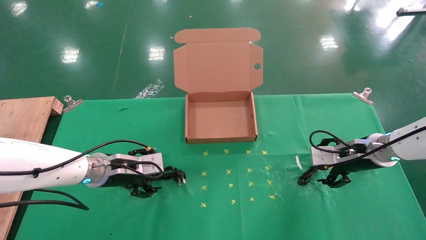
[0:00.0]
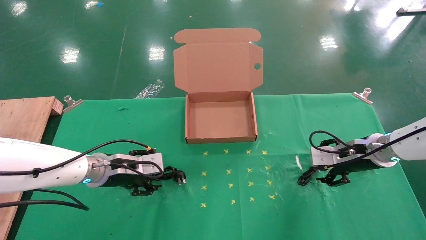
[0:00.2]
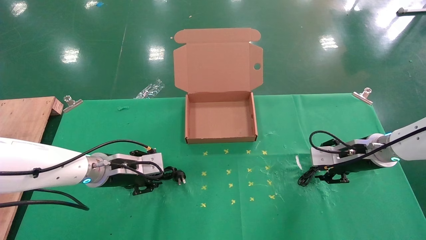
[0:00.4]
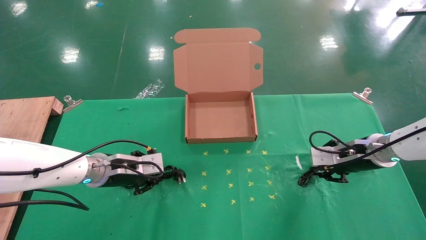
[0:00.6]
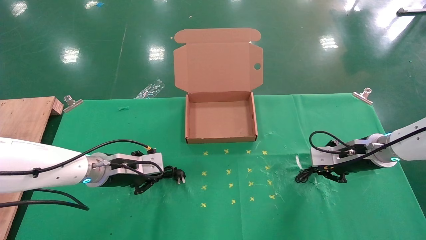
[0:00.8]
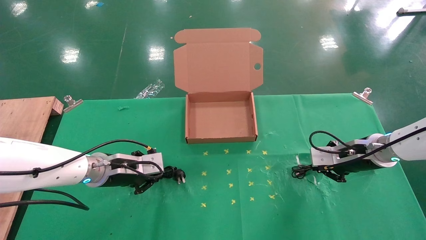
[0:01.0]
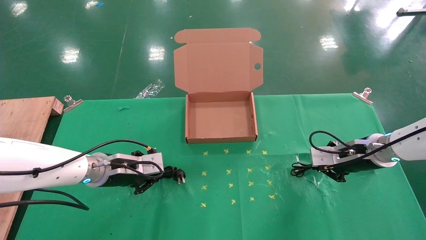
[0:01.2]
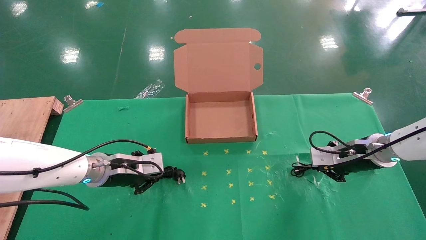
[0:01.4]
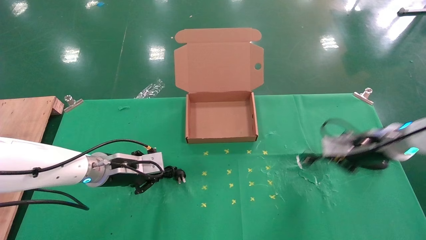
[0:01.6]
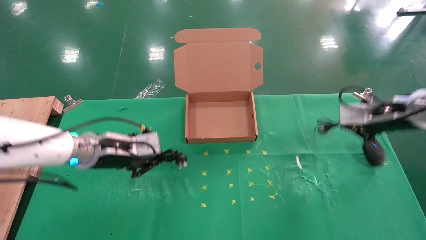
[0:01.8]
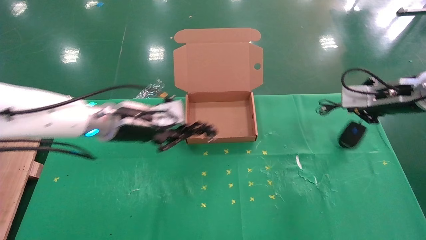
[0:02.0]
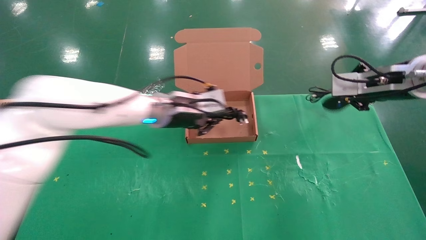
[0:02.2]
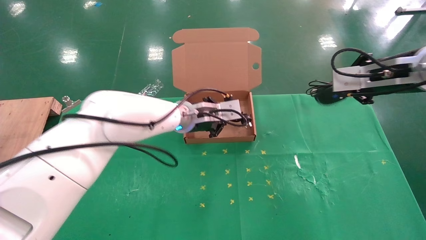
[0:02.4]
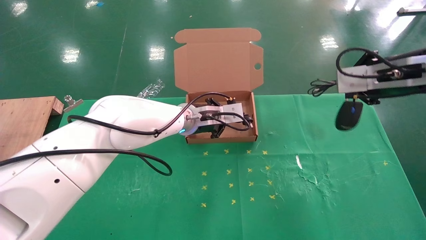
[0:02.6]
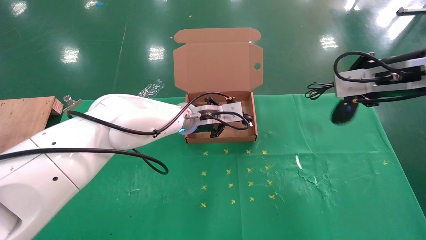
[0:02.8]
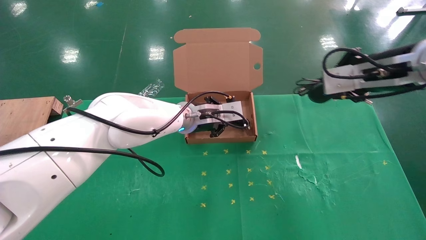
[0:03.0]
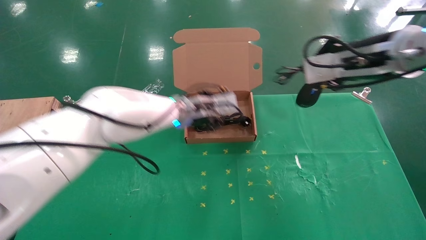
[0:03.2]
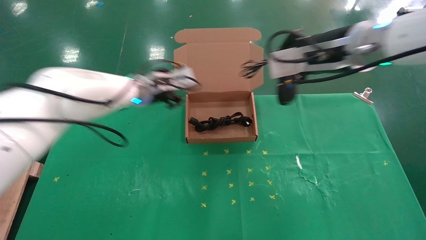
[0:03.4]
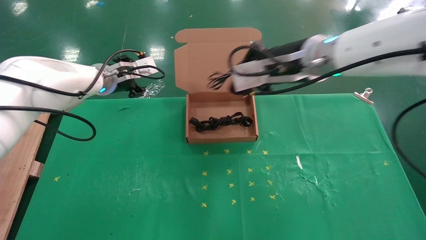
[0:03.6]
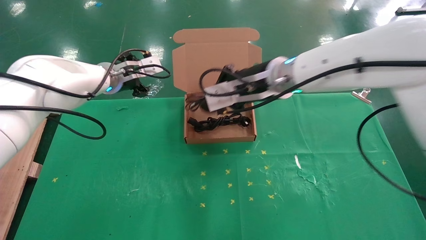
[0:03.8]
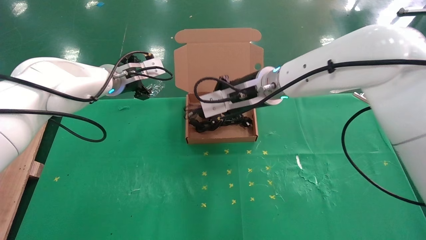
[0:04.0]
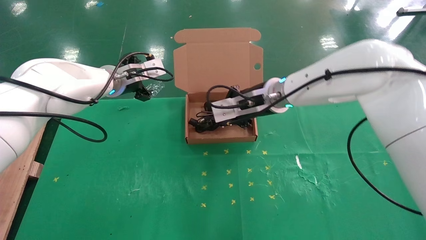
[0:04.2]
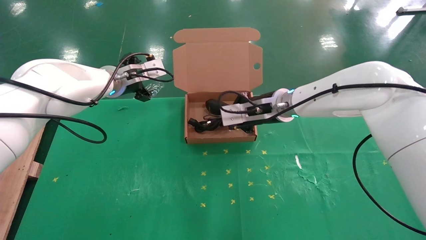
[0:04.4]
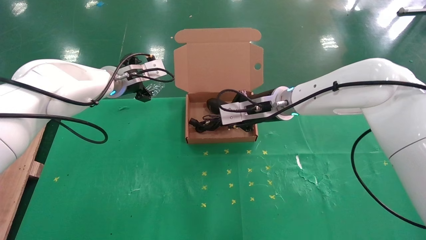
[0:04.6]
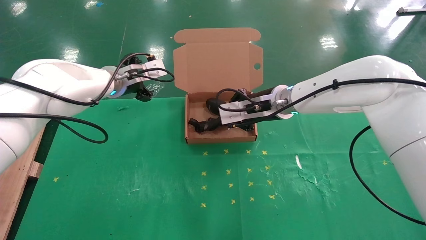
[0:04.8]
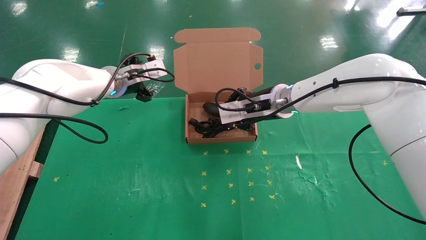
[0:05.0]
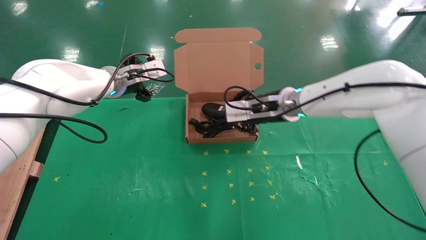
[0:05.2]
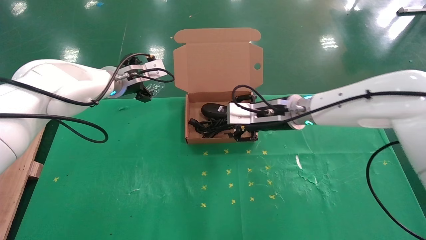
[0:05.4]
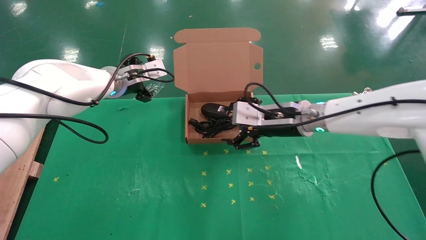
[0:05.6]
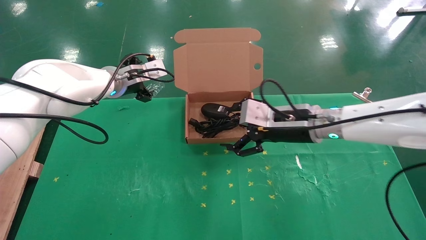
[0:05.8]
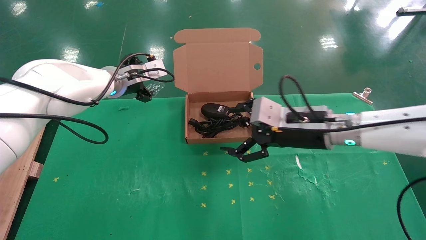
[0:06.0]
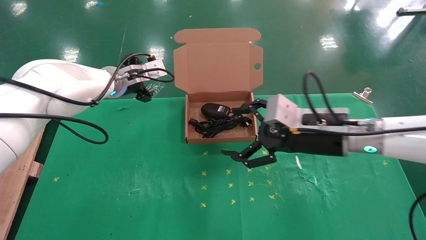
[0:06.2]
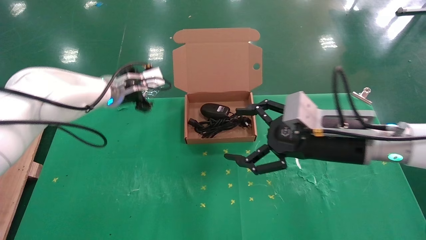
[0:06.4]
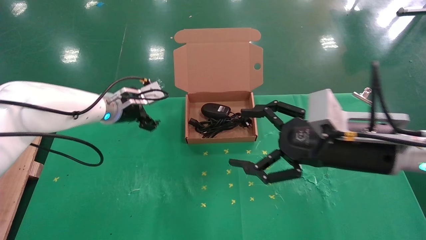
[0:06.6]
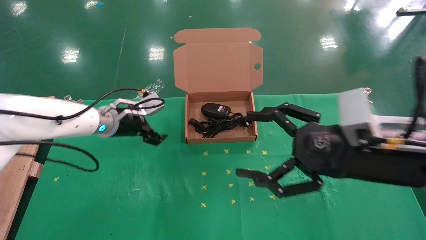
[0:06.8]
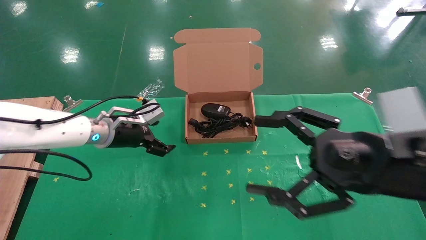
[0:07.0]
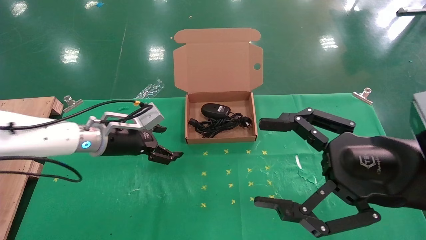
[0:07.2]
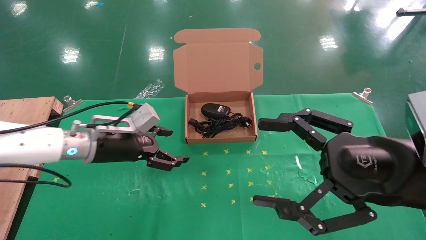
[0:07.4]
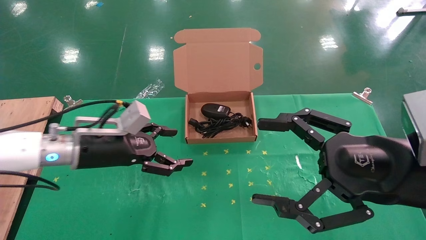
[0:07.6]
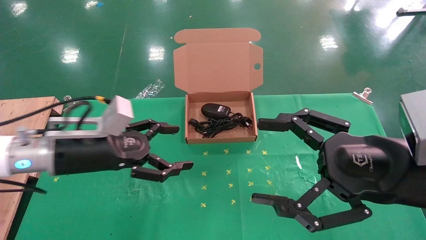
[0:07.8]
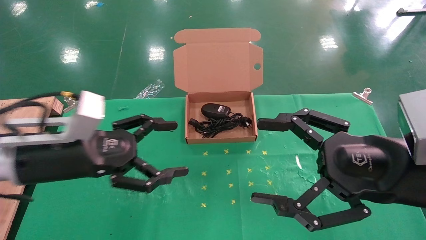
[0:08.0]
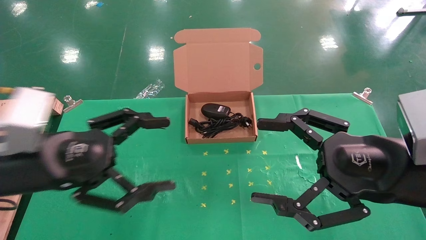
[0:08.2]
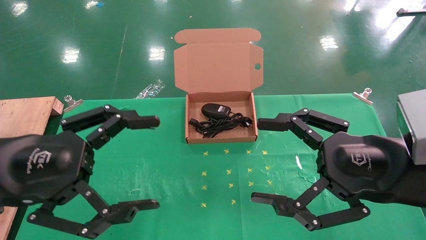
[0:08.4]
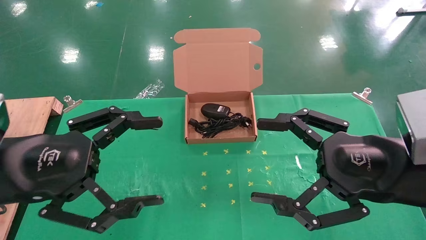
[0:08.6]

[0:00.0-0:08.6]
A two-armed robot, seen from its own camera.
Task of the whole recording: grasp data cable left put into box grasp mouse right put into box.
Step, 0:01.2 to 0:05.0: Place the mouse and power cord into the box.
0:00.0 to 0:01.4: The right gripper closes its fingers.
0:01.4 to 0:02.8: The left gripper shifts roughly 20 cm to the right, upward and forward. The right gripper goes about 20 cm upward and backward.
0:02.8 to 0:04.4: The right gripper heads to the left, forward and downward, covering roughly 25 cm; the left gripper shifts roughly 20 cm to the left and upward, and opens up.
0:04.4 to 0:05.8: The right gripper goes some 10 cm backward and to the right, and opens up.
0:05.8 to 0:07.2: The left gripper travels downward and backward by roughly 15 cm. The right gripper goes roughly 20 cm backward and to the right.
0:07.2 to 0:08.6: The left gripper moves backward, roughly 20 cm.
